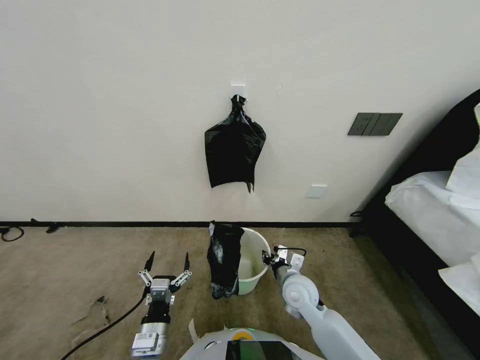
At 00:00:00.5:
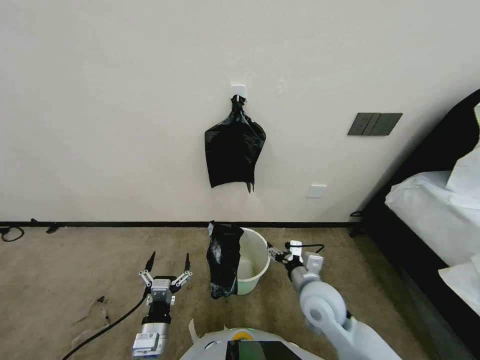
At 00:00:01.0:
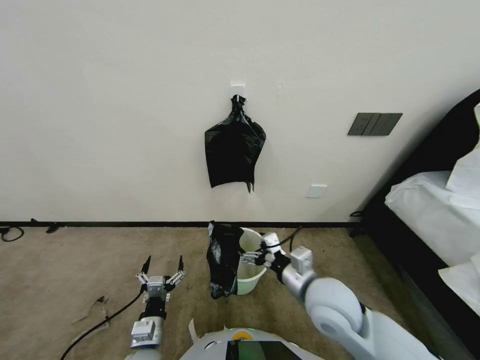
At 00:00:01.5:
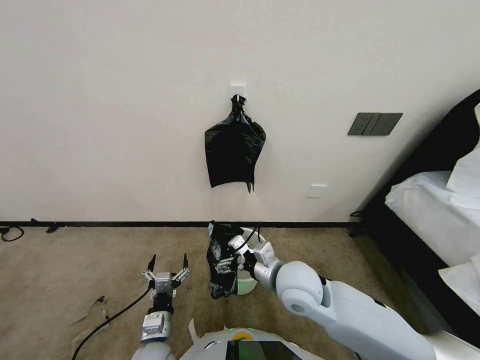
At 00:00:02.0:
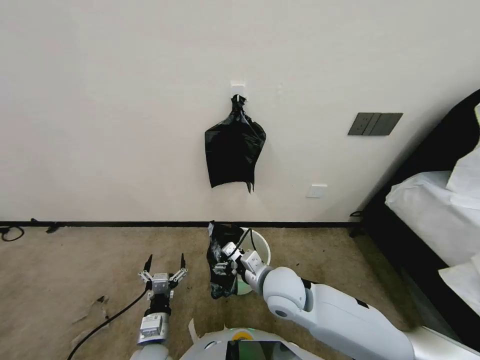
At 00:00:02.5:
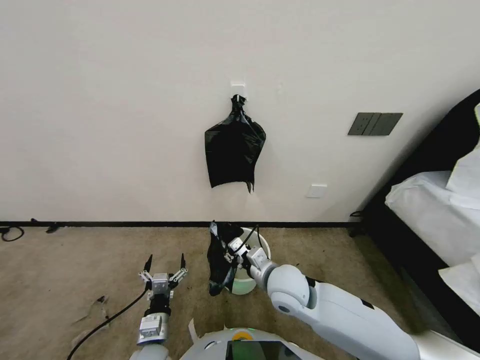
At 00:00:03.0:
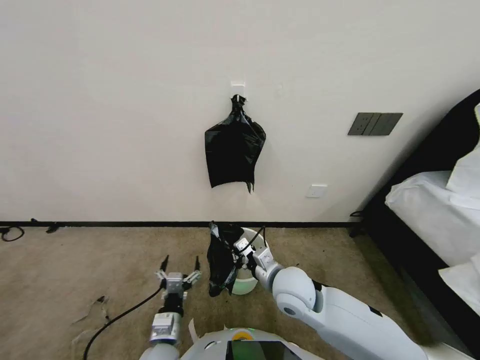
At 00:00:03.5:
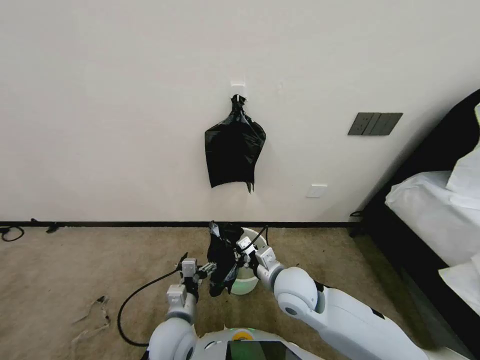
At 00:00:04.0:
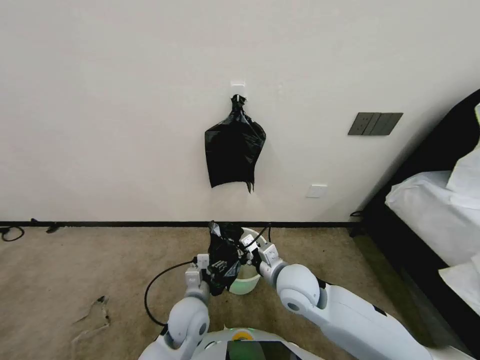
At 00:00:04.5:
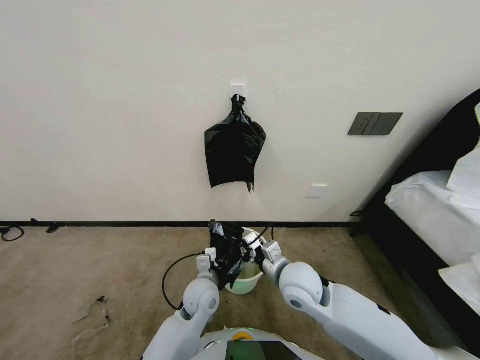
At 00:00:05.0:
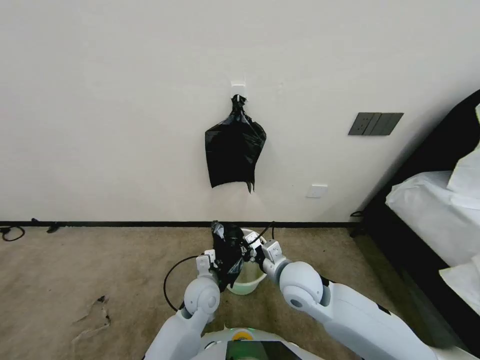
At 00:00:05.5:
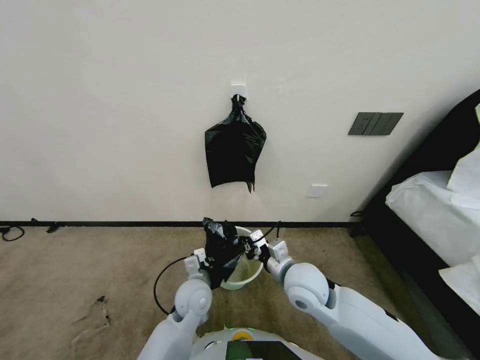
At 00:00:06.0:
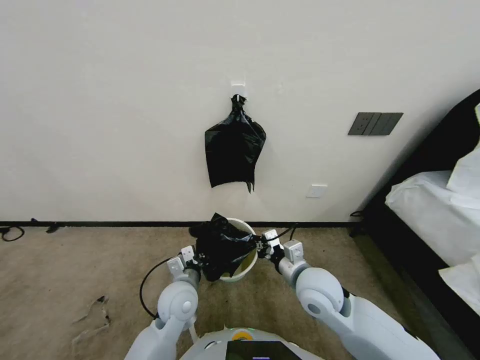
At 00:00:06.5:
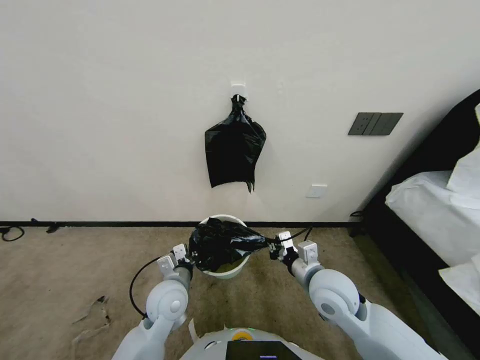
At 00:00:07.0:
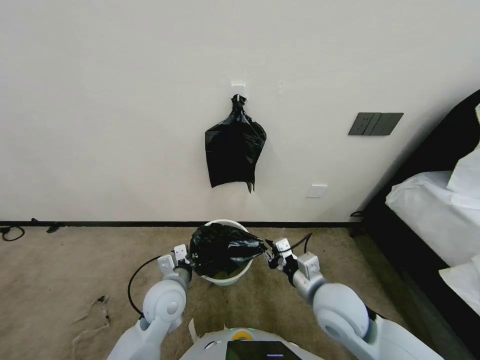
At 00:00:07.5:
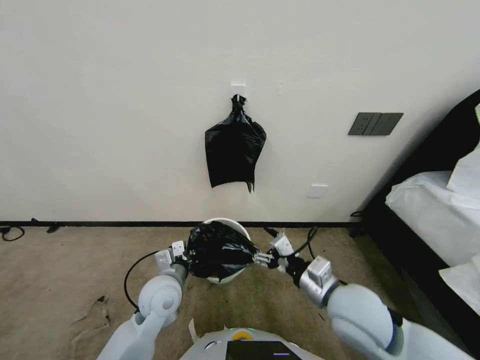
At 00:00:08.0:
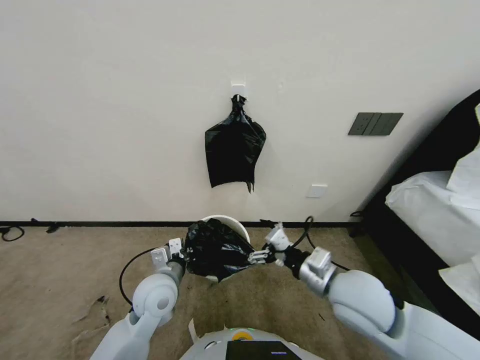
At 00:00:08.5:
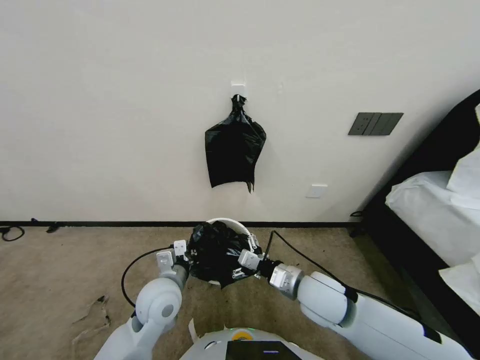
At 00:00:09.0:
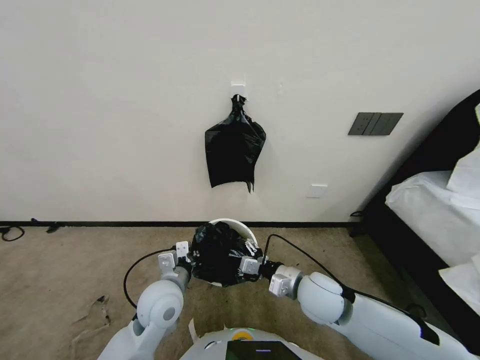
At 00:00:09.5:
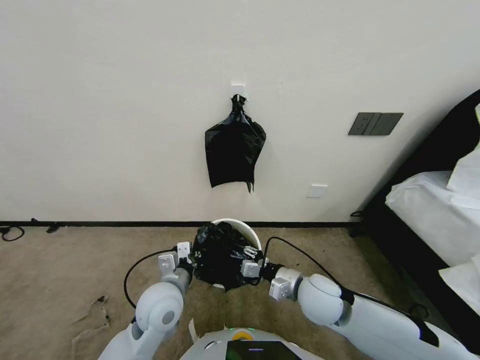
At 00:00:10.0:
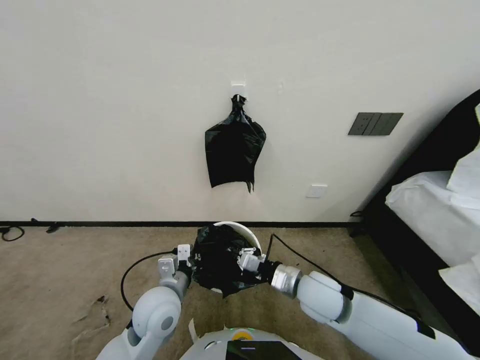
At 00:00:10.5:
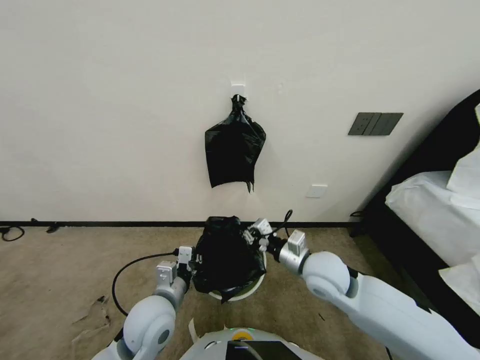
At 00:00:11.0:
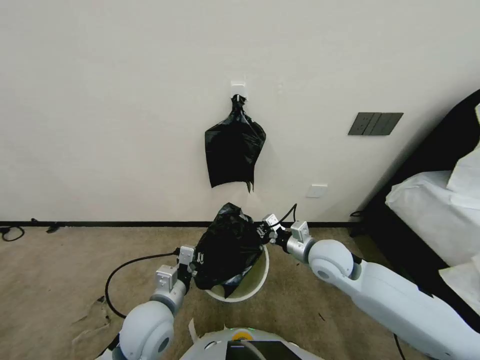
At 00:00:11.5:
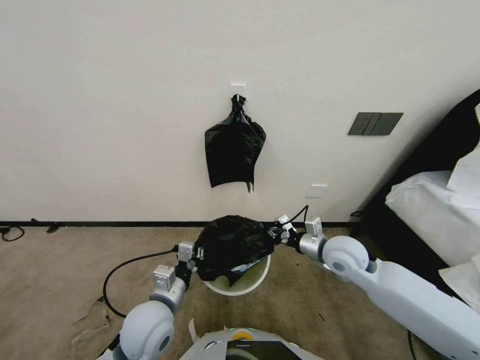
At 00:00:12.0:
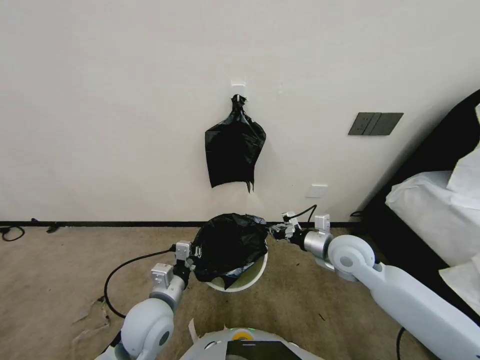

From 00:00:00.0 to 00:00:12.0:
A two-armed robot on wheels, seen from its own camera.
Task of the whole recording: Place a trash bag onto the trash bin.
From 00:00:00.0 to 00:00:02.0: The right gripper heads upward and to the left, covering approximately 15 cm, and opens up.
From 00:00:02.0 to 00:00:04.0: The left gripper travels forward and to the right by roughly 10 cm; the right gripper closes up.
From 00:00:04.0 to 00:00:06.0: The left gripper changes place by about 5 cm, and closes.
From 00:00:06.0 to 00:00:08.0: The left gripper travels to the left by about 5 cm, while the right gripper shifts approximately 10 cm upward and to the right, and opens up.
From 00:00:08.0 to 00:00:10.0: The right gripper travels downward by some 10 cm, and closes its fingers.
From 00:00:10.0 to 00:00:12.0: The right gripper moves to the right, forward and upward, roughly 15 cm.

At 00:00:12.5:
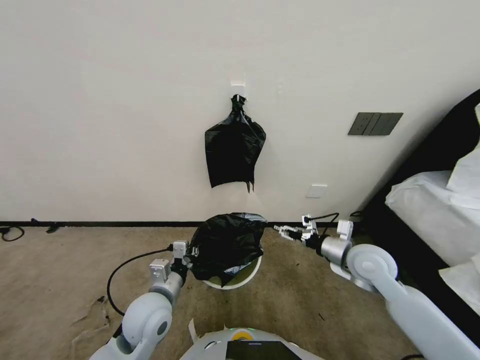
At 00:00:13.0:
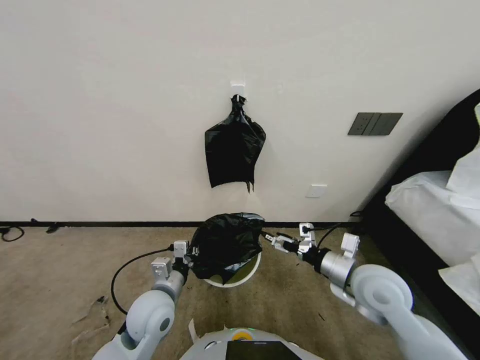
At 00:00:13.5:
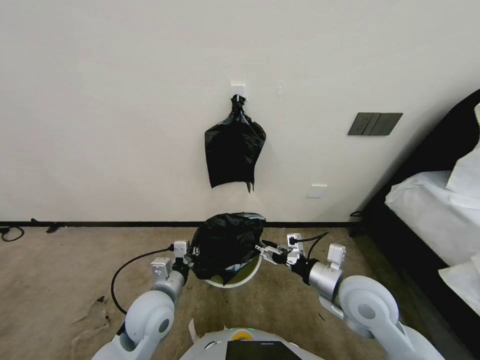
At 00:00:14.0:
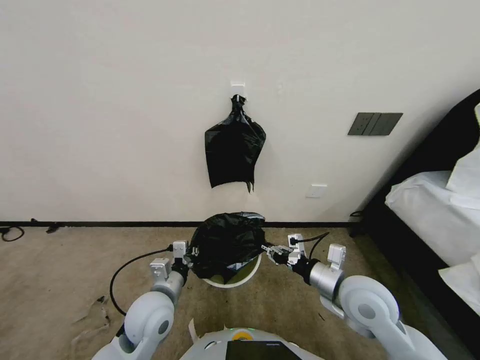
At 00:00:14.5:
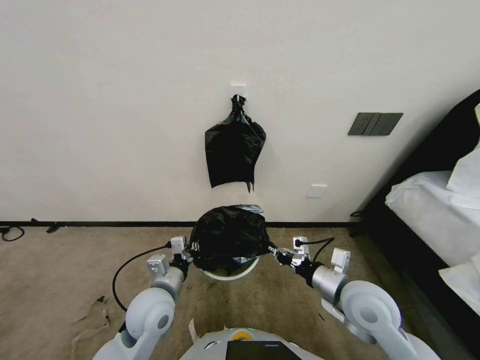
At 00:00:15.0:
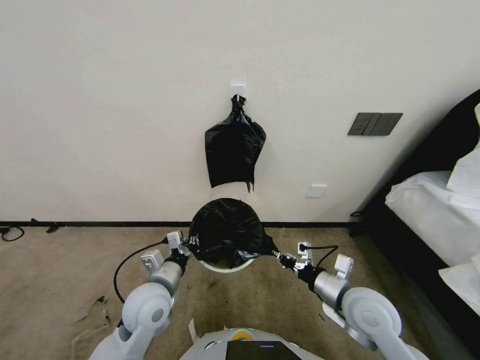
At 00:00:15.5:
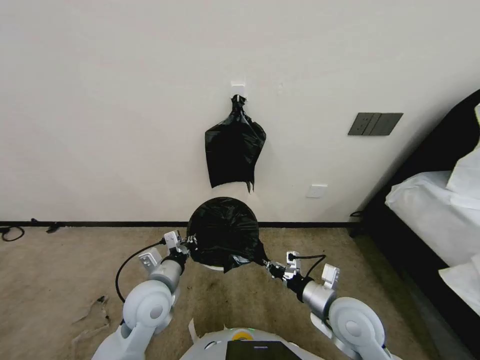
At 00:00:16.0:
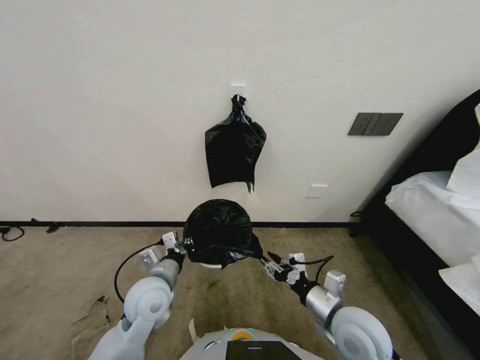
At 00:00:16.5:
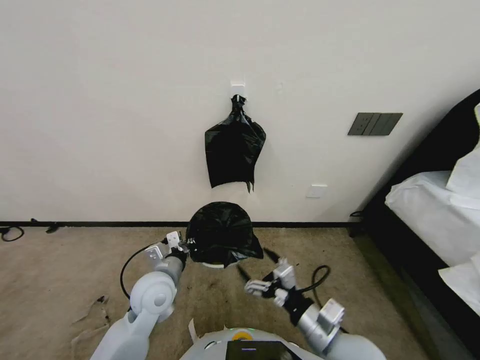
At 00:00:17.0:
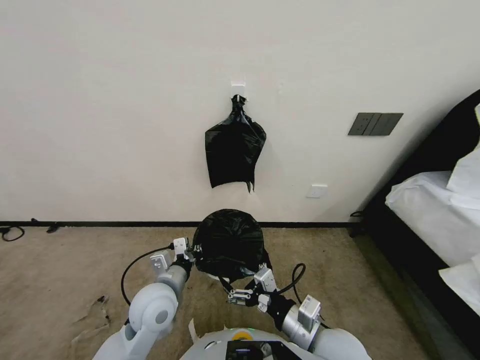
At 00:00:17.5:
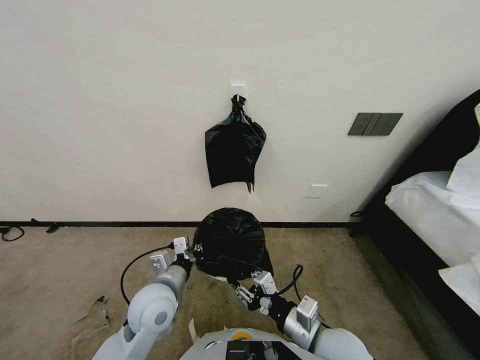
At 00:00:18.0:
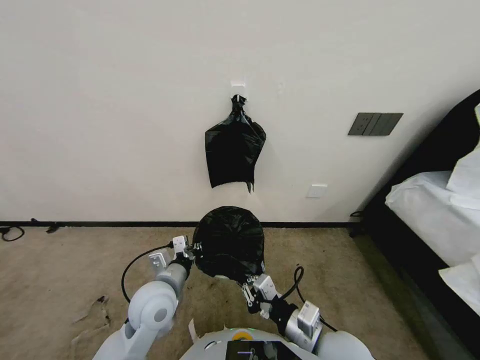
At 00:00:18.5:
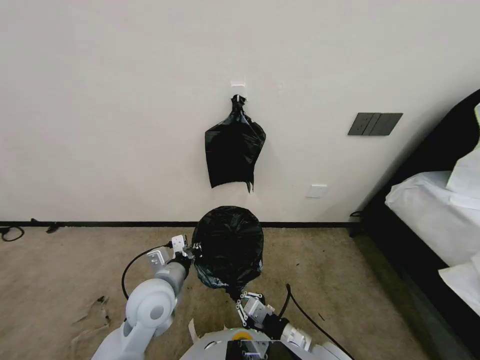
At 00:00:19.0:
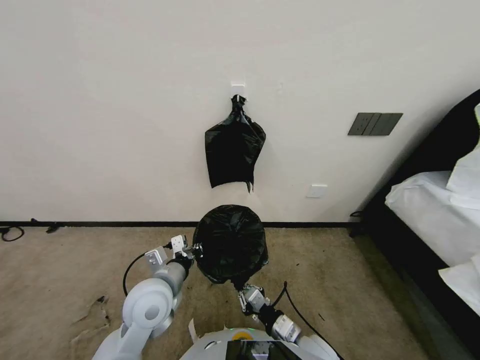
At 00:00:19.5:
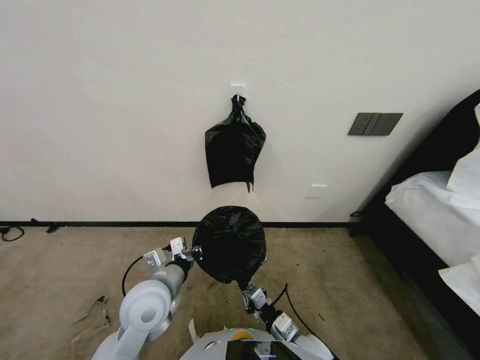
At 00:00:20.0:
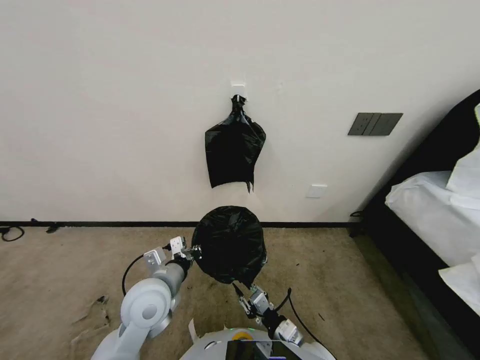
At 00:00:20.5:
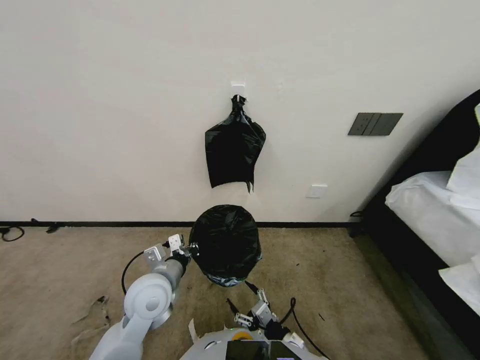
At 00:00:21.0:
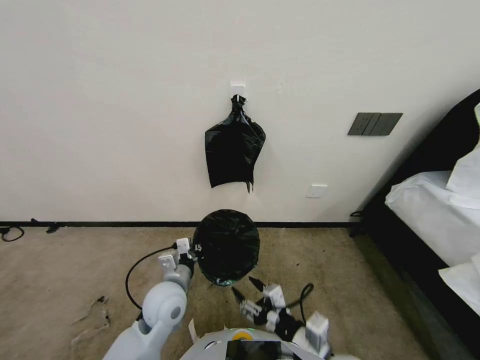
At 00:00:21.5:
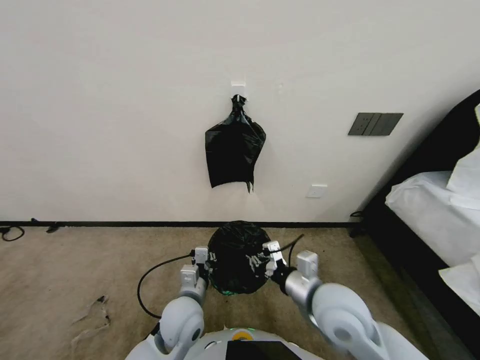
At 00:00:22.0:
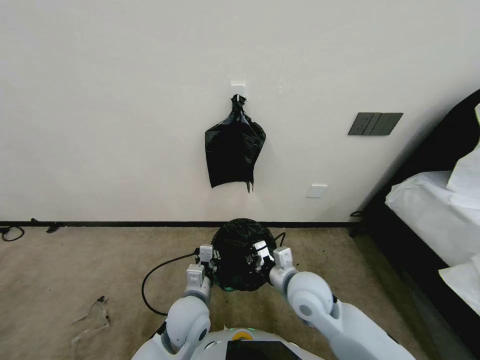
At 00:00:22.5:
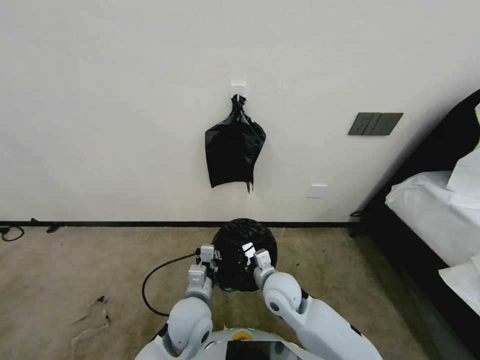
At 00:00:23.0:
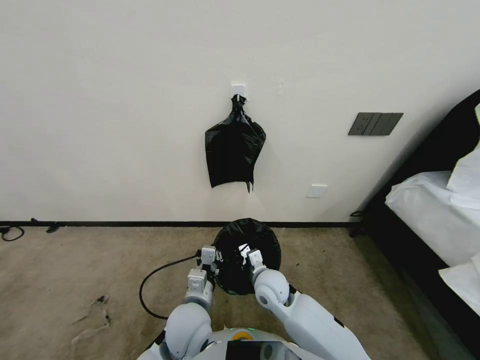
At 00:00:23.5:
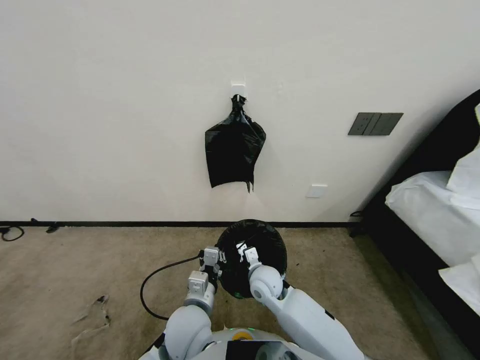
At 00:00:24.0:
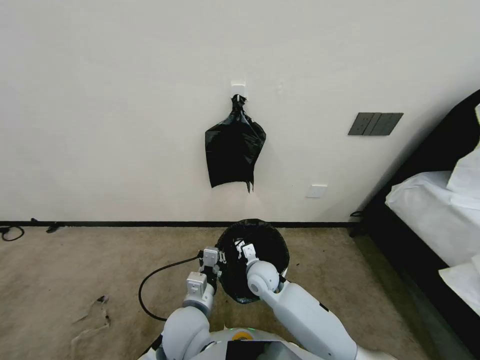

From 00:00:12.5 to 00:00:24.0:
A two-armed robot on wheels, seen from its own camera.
Task of the whole recording: Place a trash bag onto the trash bin.
From 00:00:12.5 to 00:00:14.5: The right gripper goes some 10 cm backward and to the left, and closes.
From 00:00:14.5 to 00:00:16.5: The right gripper moves backward, approximately 10 cm, and opens.
From 00:00:16.5 to 00:00:18.5: The right gripper shifts by approximately 5 cm, and closes.
From 00:00:18.5 to 00:00:20.0: The right gripper shifts about 10 cm downward.
From 00:00:20.0 to 00:00:22.0: The left gripper goes approximately 10 cm to the right and downward. The right gripper goes approximately 20 cm upward and forward, and opens and closes again.
From 00:00:22.0 to 00:00:24.0: The right gripper moves downward, to the left and forward, about 15 cm.

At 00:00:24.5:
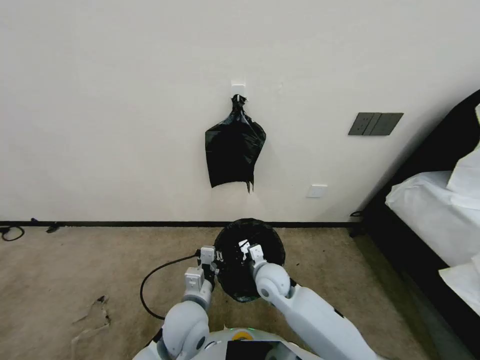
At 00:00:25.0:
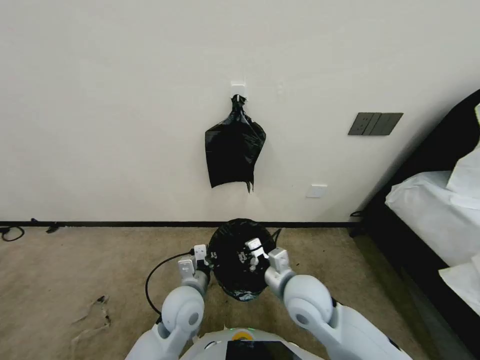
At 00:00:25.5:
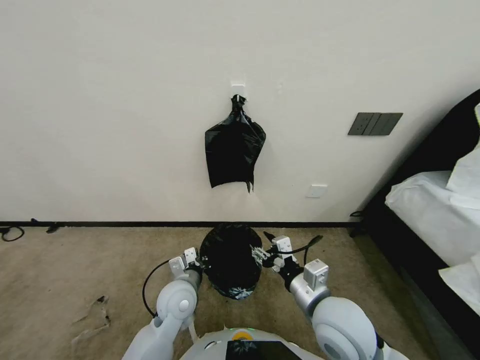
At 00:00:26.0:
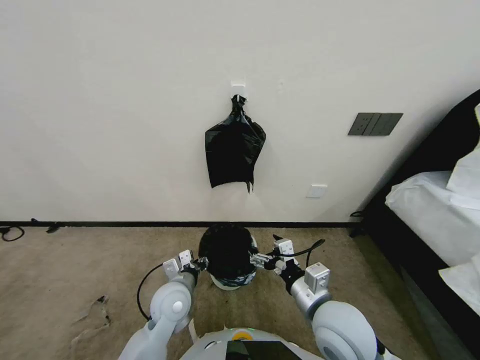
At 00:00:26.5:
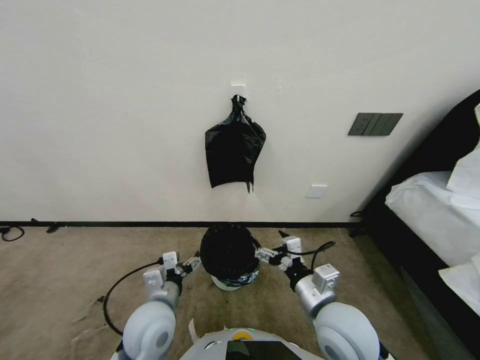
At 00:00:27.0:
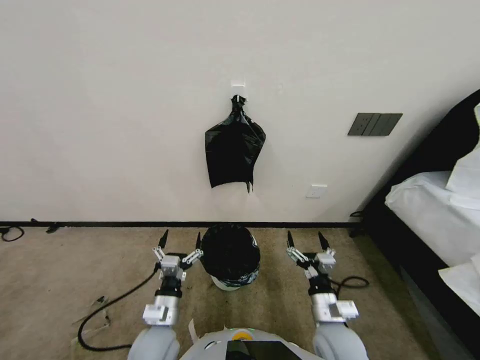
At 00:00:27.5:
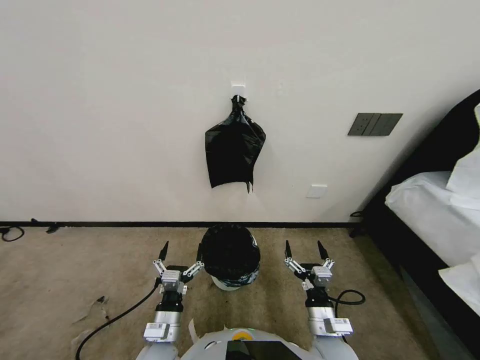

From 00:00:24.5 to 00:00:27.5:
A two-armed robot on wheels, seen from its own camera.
Task of the whole recording: Place a trash bag onto the trash bin.
From 00:00:24.5 to 00:00:26.0: The left gripper travels forward and to the left by approximately 10 cm. Meanwhile the right gripper heads backward, upward and to the right, covering some 20 cm, and opens its fingers.
From 00:00:26.0 to 00:00:27.5: The left gripper shifts about 10 cm backward, and opens up; the right gripper heads downward, covering approximately 15 cm.
